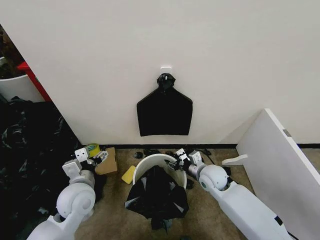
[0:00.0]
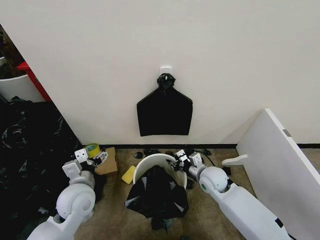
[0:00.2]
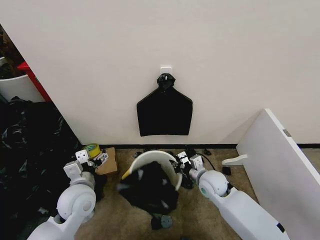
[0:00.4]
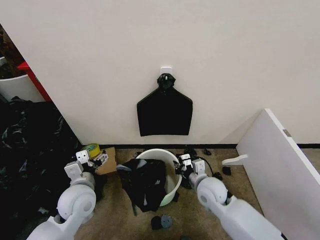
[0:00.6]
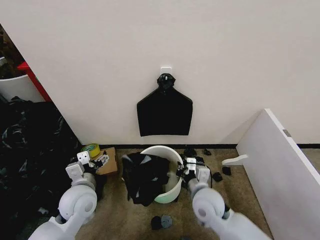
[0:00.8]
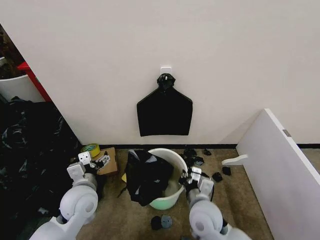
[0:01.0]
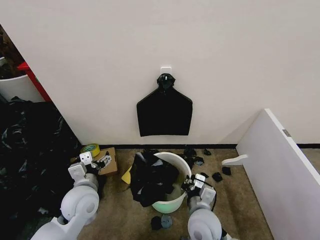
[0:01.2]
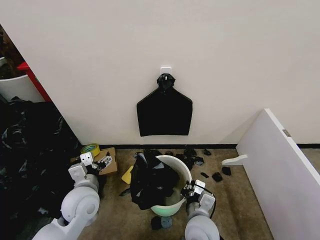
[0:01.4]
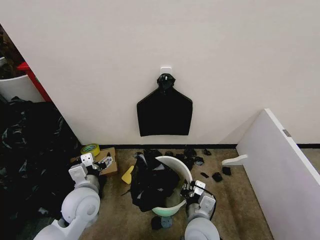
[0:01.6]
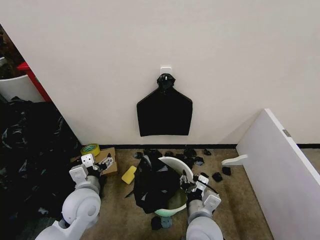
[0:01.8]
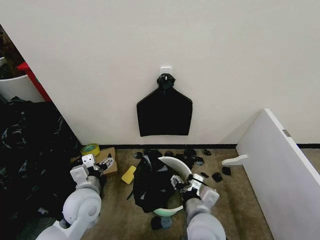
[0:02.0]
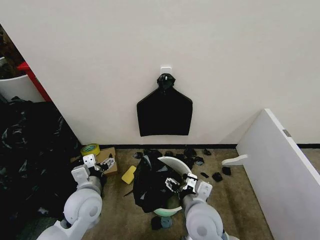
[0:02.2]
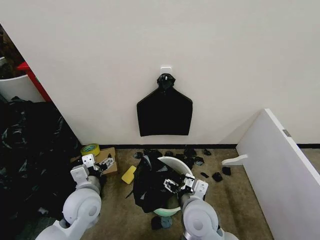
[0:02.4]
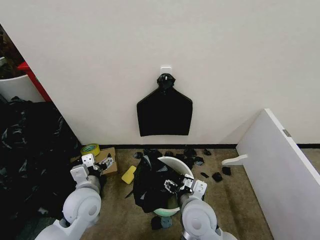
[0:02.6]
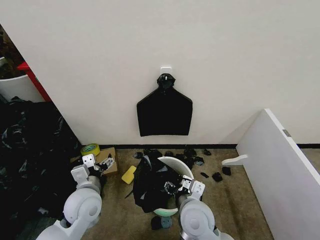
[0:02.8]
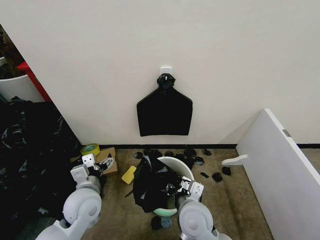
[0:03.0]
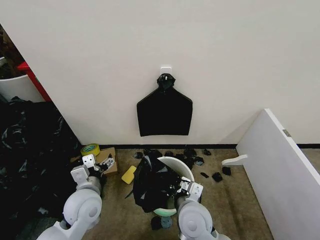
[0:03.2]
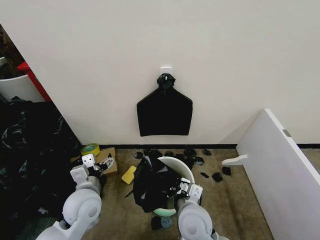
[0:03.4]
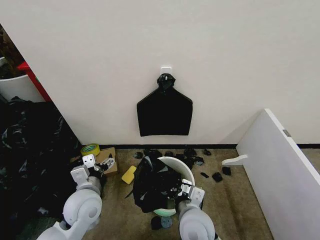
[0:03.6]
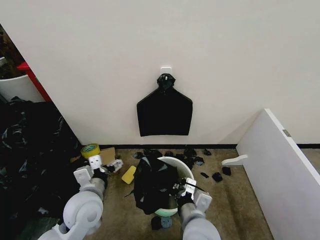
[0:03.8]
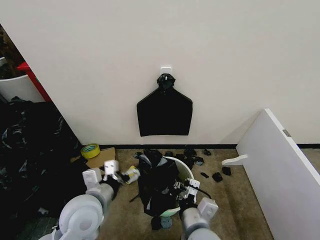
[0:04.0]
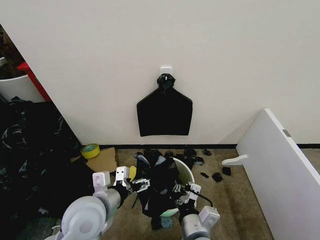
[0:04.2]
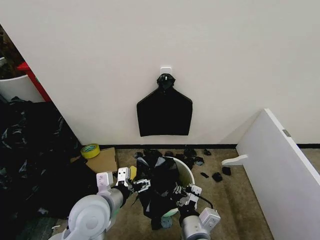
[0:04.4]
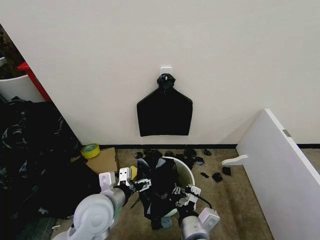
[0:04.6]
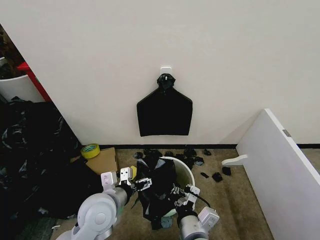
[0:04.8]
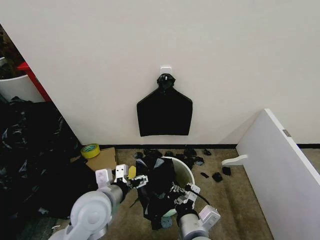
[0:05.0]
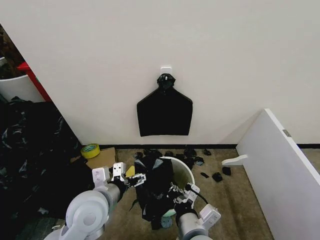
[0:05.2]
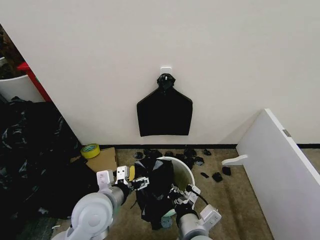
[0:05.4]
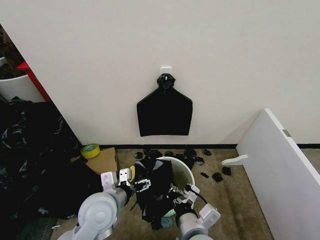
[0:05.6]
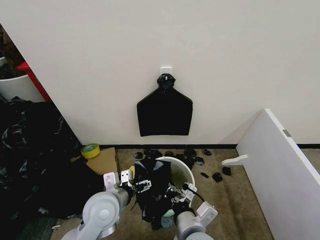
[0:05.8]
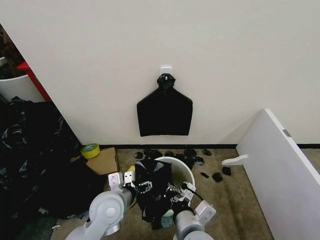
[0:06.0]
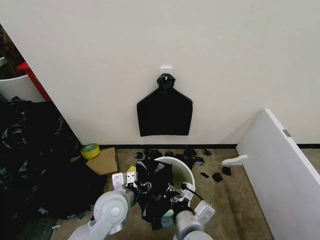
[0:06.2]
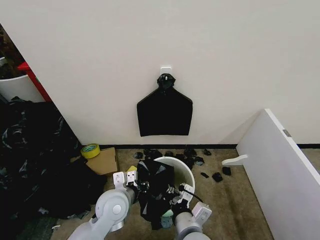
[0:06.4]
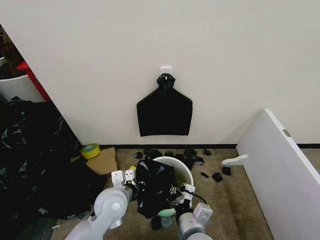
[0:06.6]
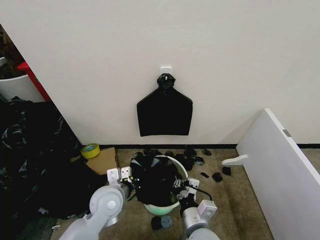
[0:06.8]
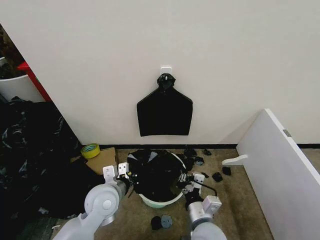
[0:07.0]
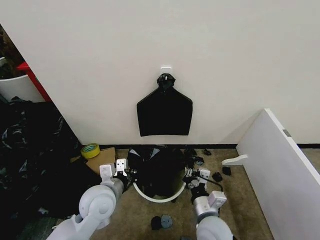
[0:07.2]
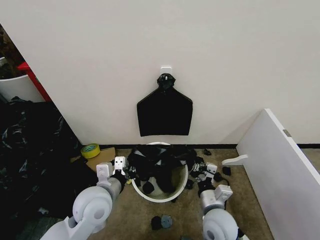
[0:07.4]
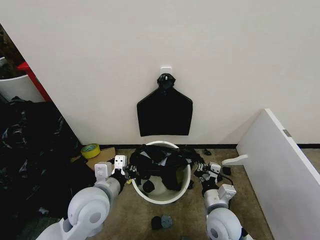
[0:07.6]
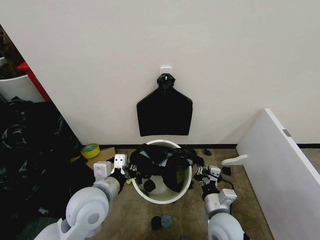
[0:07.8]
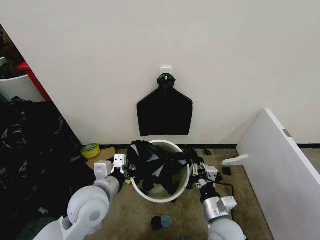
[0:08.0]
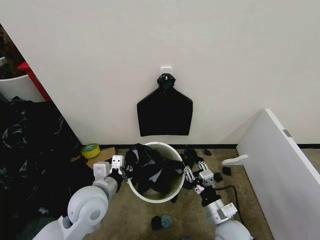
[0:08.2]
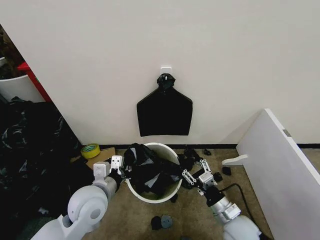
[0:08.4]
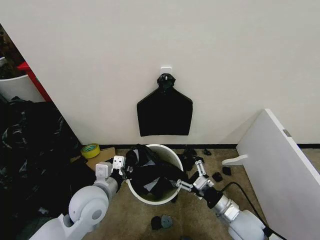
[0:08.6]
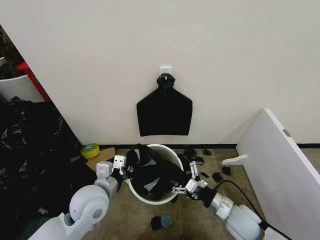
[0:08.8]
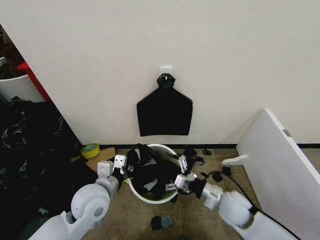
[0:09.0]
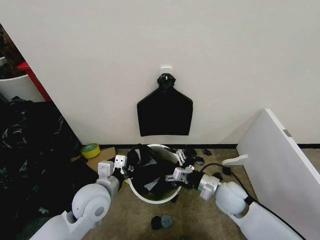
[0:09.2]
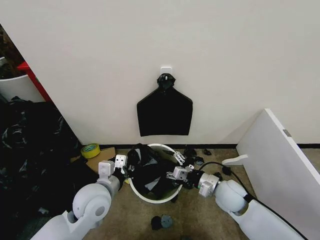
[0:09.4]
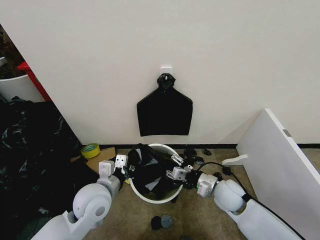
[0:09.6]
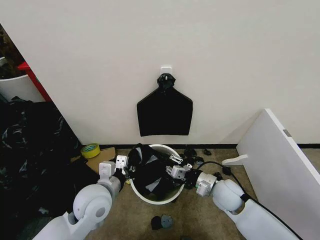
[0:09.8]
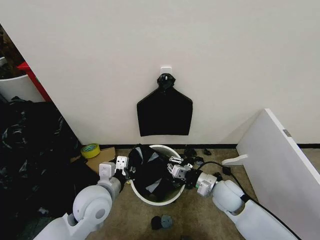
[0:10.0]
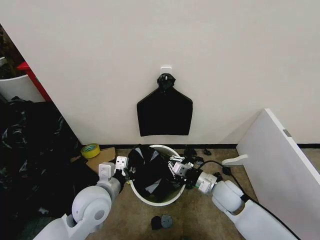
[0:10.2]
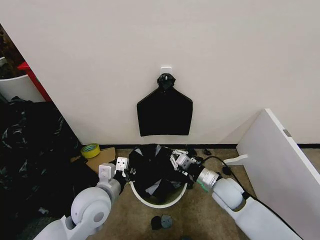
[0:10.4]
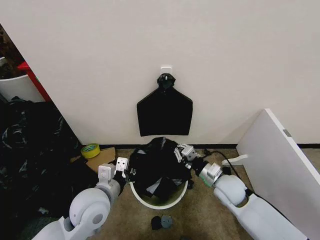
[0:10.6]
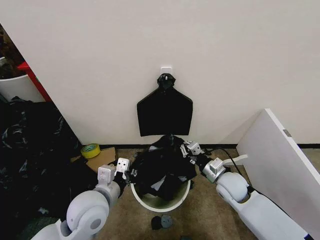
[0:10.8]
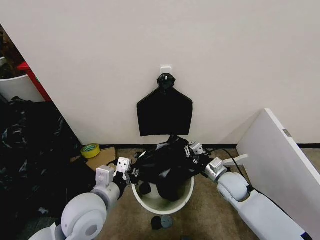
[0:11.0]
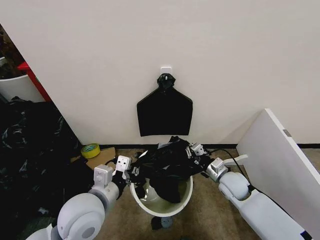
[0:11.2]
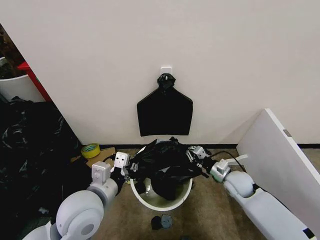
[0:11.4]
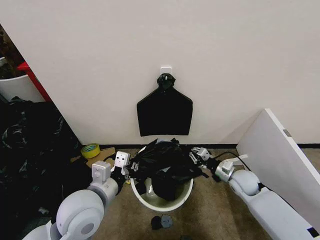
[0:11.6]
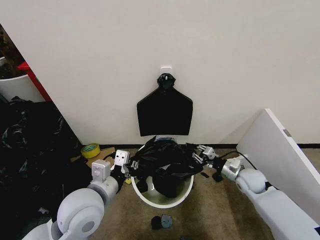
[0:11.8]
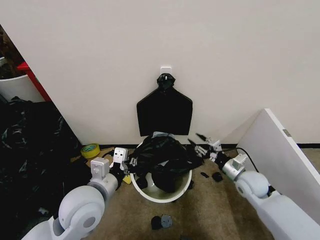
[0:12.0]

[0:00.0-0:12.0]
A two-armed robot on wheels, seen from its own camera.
Task of the whole recording: Place the garbage bag over the trash bin.
0:00.0 to 0:01.6: The right gripper goes roughly 20 cm backward and to the left.
0:01.6 to 0:03.0: The right gripper opens, then closes once more.
0:03.0 to 0:04.4: The left gripper shifts by some 5 cm, while the right gripper heads backward, covering approximately 10 cm, and closes.
0:04.4 to 0:06.0: The left gripper changes place by roughly 5 cm.
0:06.0 to 0:07.6: The left gripper shifts about 5 cm upward, and closes. The right gripper is displaced to the right, forward and downward by some 15 cm.
0:07.6 to 0:09.0: The right gripper is displaced to the right by about 5 cm, and opens its fingers.
0:09.0 to 0:10.4: The right gripper moves forward, about 5 cm, and closes up.
0:10.4 to 0:12.0: The left gripper moves some 5 cm, while the right gripper shifts approximately 10 cm to the right, and opens.

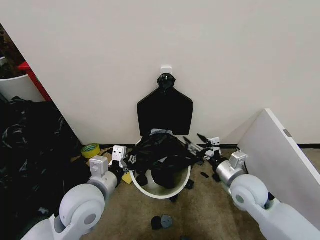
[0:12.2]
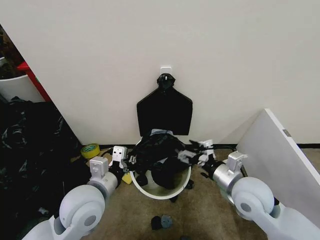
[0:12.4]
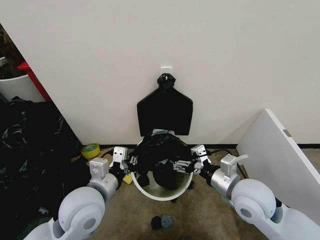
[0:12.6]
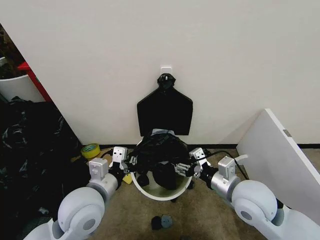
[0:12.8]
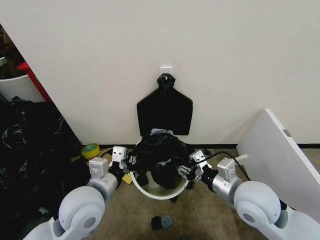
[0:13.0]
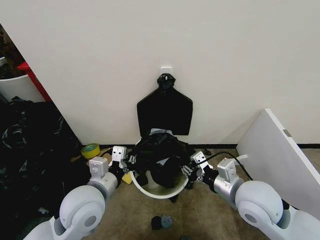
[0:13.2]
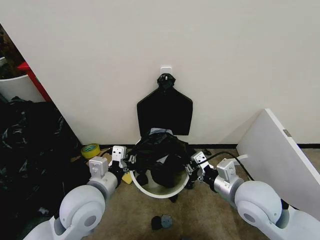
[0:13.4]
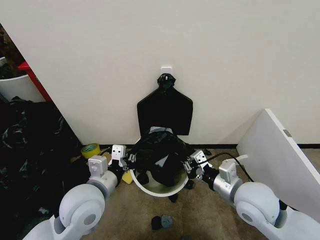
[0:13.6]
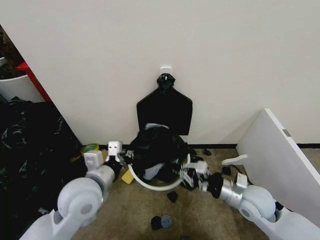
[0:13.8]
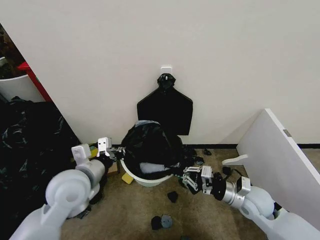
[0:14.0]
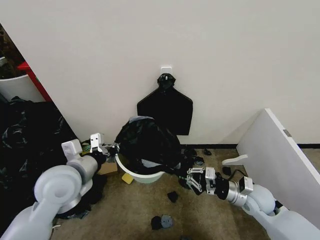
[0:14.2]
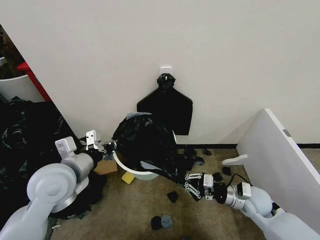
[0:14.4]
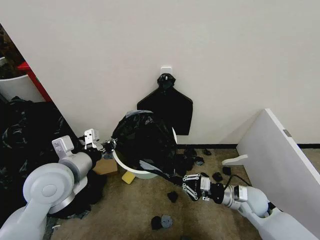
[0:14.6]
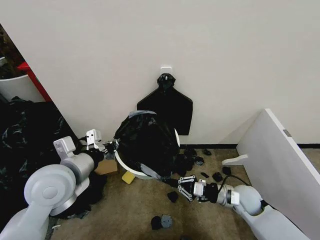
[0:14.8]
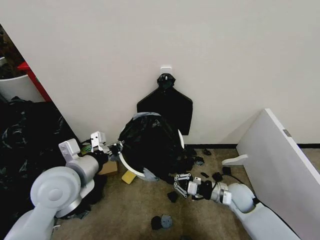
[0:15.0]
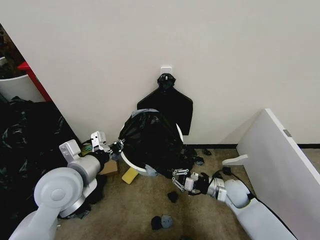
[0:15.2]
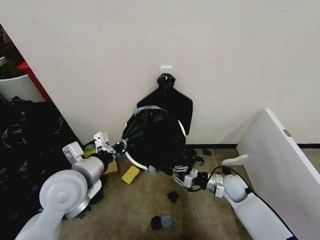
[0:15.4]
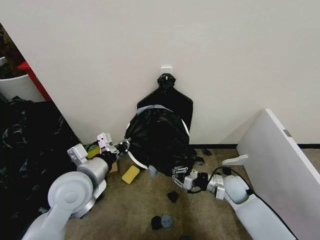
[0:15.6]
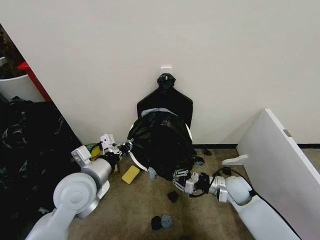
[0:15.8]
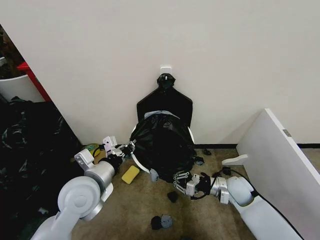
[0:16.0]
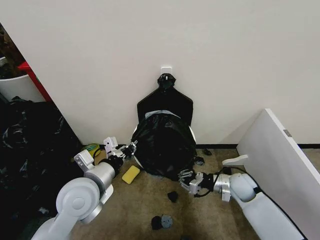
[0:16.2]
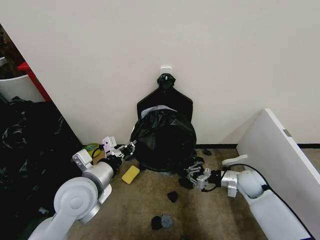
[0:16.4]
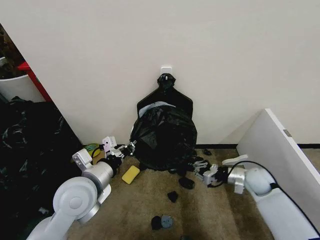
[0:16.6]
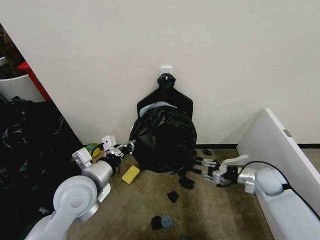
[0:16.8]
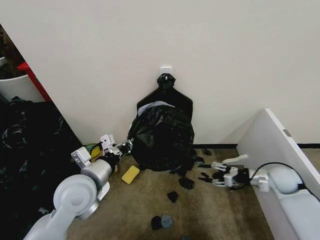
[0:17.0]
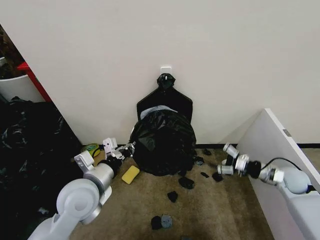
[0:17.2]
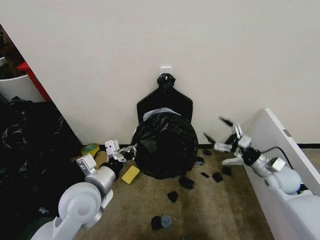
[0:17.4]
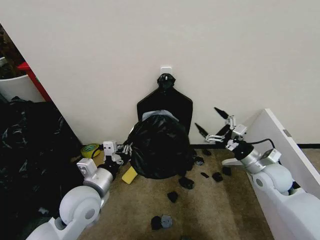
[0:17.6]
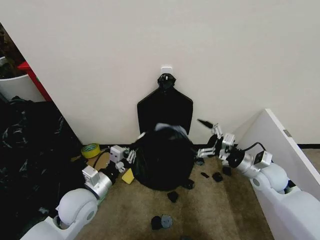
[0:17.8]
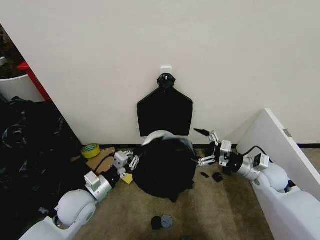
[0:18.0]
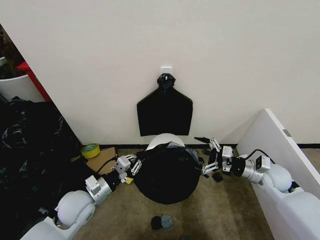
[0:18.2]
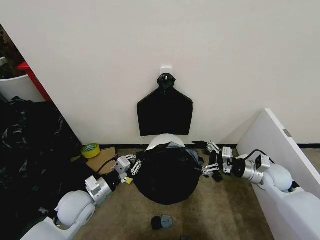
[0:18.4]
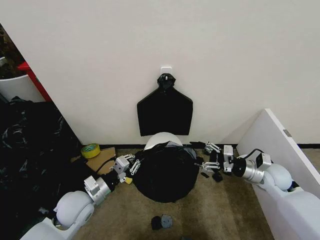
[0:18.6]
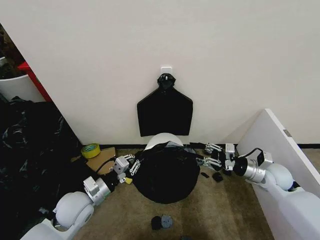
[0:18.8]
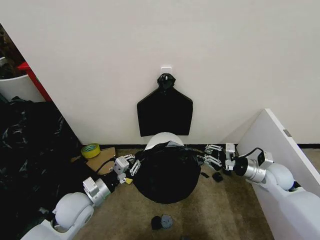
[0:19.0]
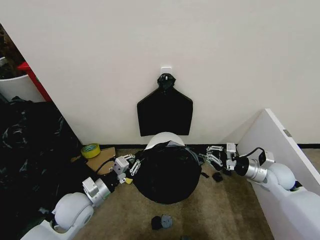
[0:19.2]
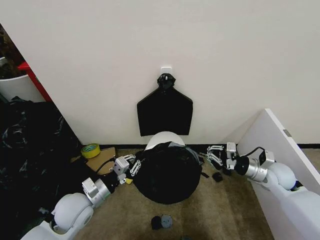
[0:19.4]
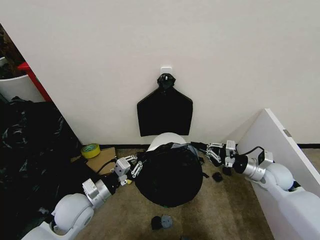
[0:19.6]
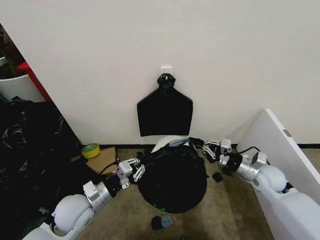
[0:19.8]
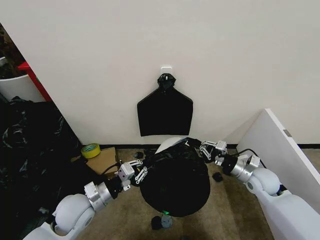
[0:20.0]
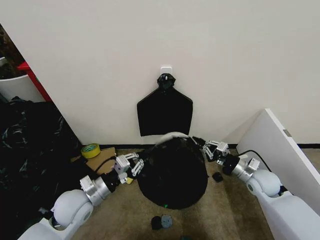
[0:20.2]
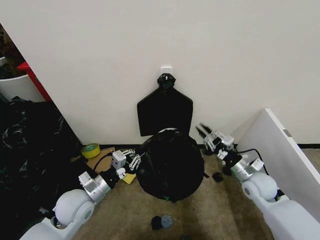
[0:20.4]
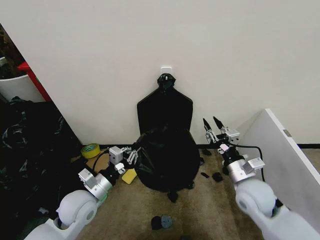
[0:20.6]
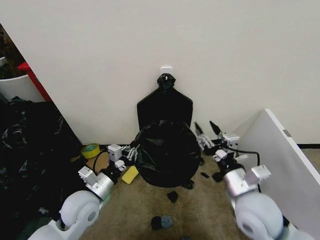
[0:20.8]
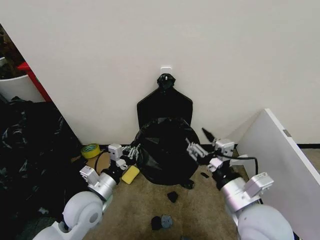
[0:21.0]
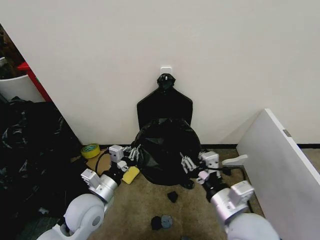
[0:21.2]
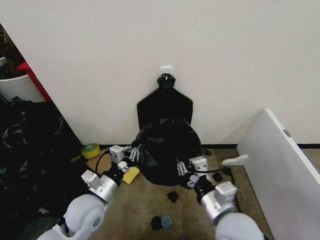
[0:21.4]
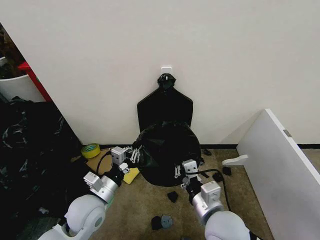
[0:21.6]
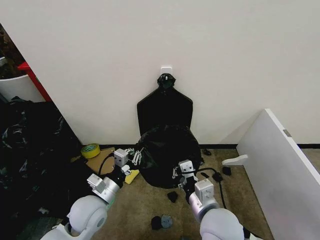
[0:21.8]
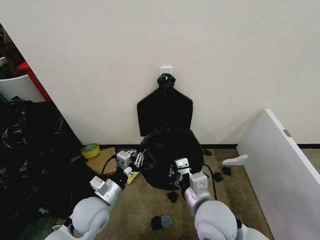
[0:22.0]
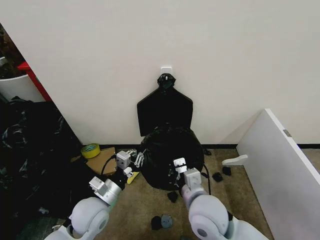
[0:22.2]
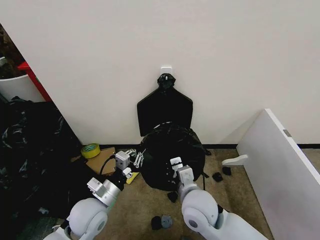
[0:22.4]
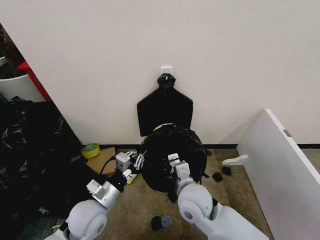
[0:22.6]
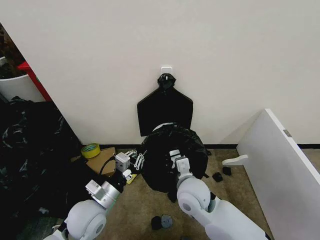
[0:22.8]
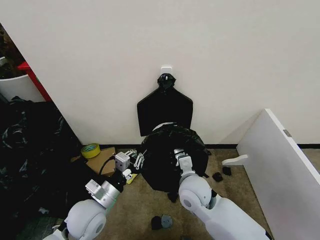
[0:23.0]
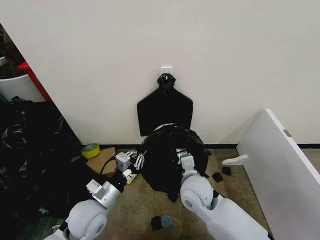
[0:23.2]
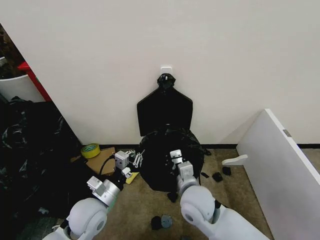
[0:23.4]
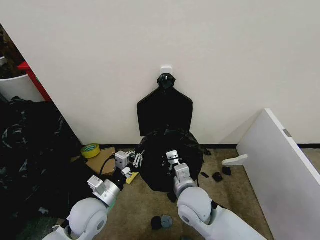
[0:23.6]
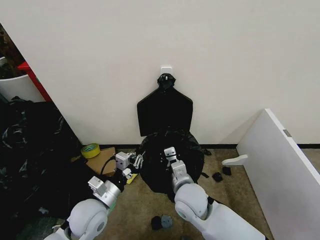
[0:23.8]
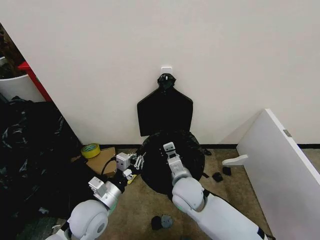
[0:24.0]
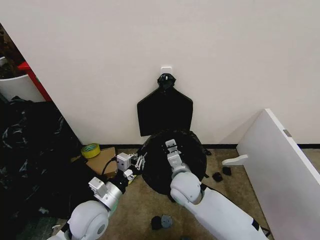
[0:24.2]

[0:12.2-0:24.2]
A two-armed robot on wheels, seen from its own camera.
Task of the whole recording: Place the garbage bag over the trash bin.
0:12.2 to 0:13.8: The right gripper moves about 5 cm upward and comes back, and closes up.
0:13.8 to 0:15.2: The right gripper heads downward and forward, covering some 10 cm.
0:15.2 to 0:16.6: The right gripper shifts some 10 cm to the right.
0:16.6 to 0:18.2: The left gripper heads downward, covering approximately 10 cm. Meanwhile the right gripper heads upward, covering about 5 cm, moves about 10 cm to the right and comes back, and opens its fingers.
0:18.2 to 0:19.8: The right gripper closes its fingers.
0:19.8 to 0:21.2: The right gripper is displaced backward, to the left and upward by about 25 cm, and opens.
0:21.2 to 0:22.6: The right gripper goes about 15 cm to the left, forward and downward, and closes.
0:22.6 to 0:24.2: The right gripper is displaced forward by approximately 5 cm.
